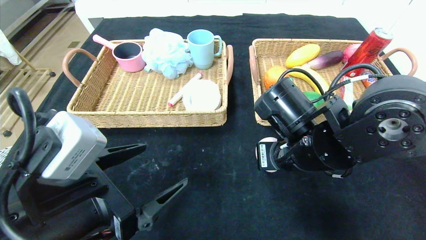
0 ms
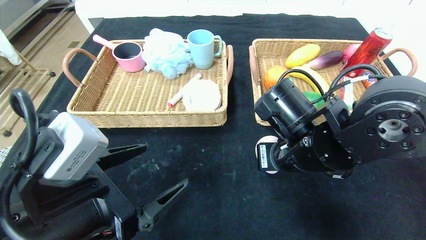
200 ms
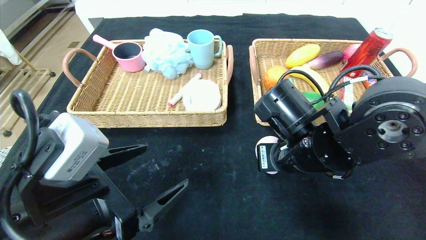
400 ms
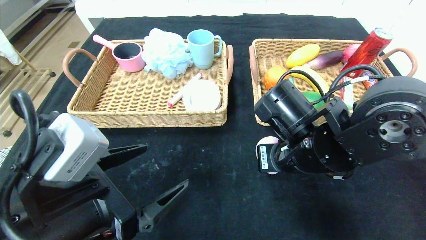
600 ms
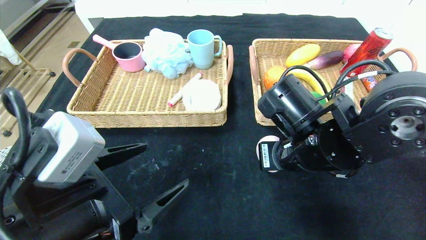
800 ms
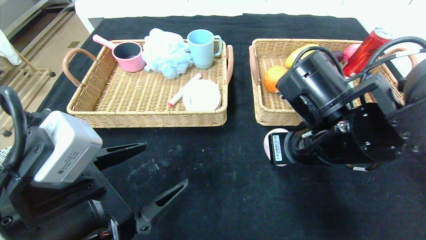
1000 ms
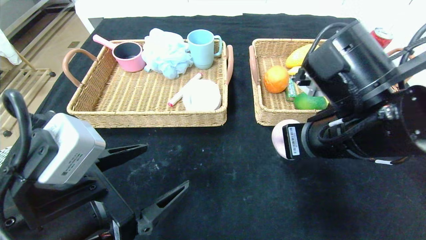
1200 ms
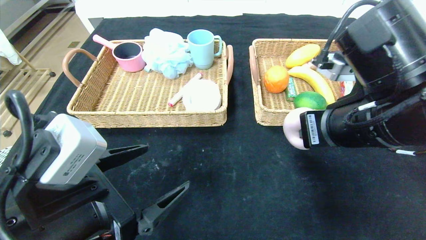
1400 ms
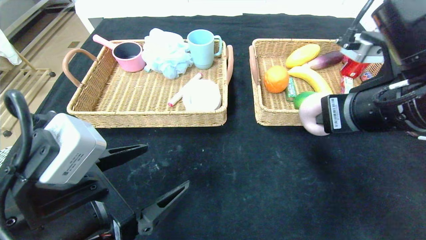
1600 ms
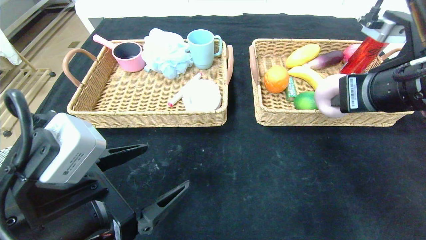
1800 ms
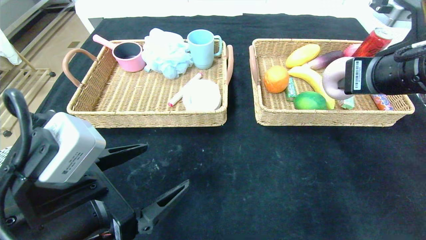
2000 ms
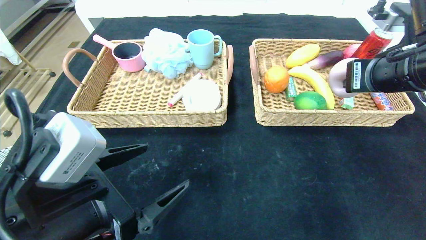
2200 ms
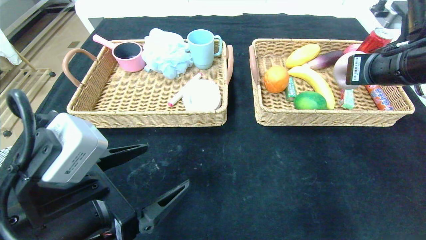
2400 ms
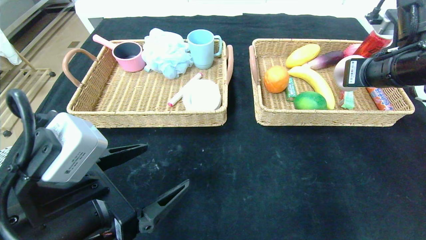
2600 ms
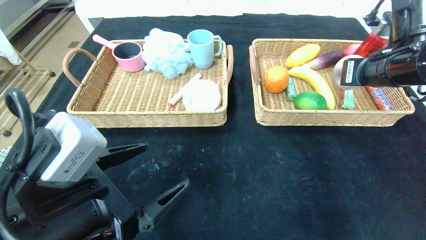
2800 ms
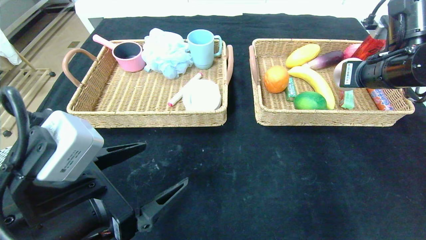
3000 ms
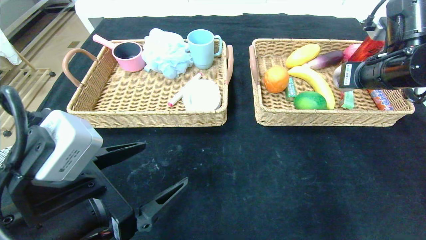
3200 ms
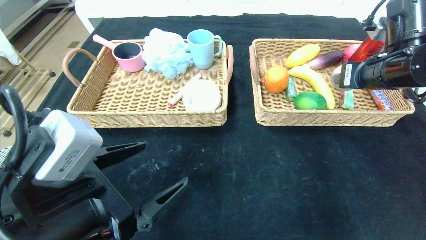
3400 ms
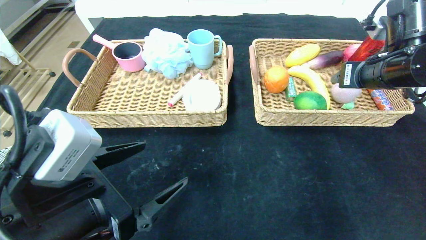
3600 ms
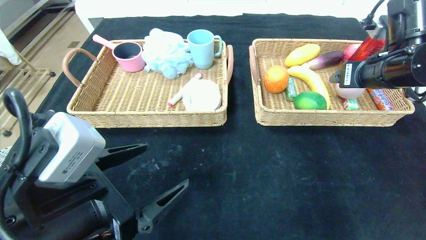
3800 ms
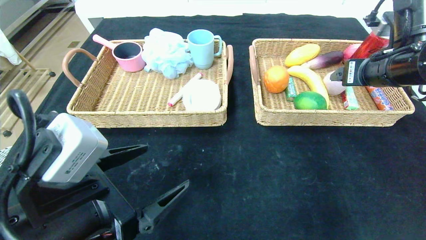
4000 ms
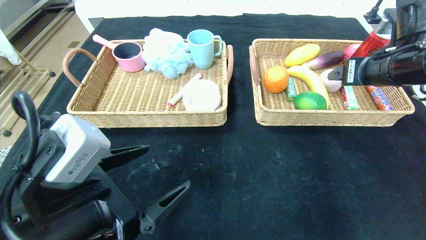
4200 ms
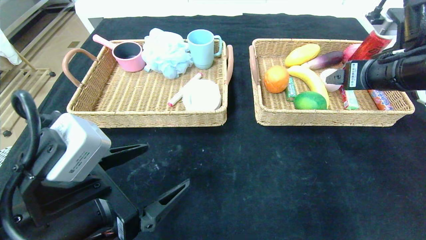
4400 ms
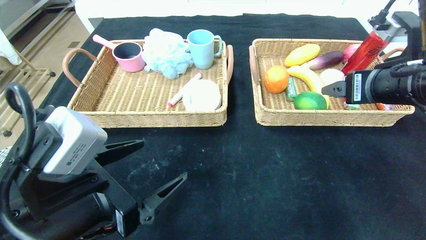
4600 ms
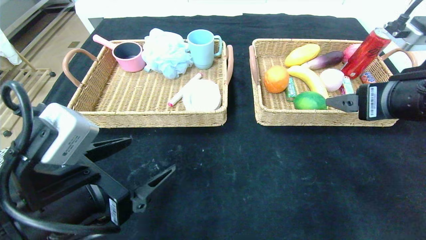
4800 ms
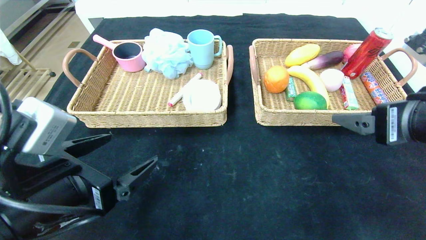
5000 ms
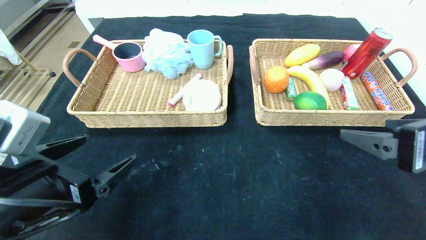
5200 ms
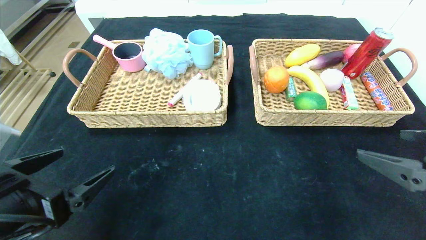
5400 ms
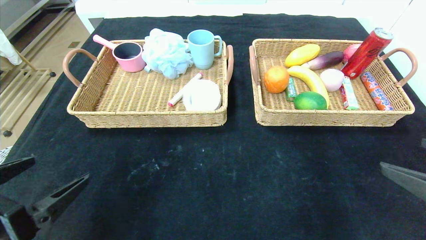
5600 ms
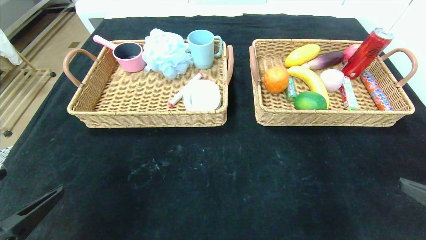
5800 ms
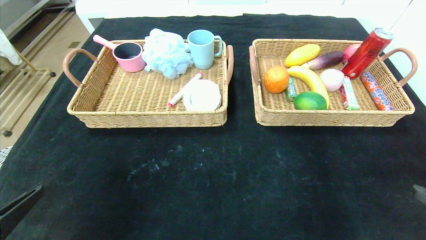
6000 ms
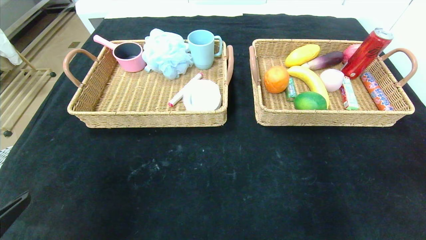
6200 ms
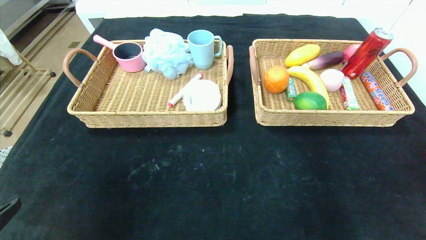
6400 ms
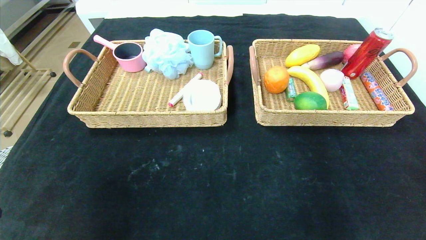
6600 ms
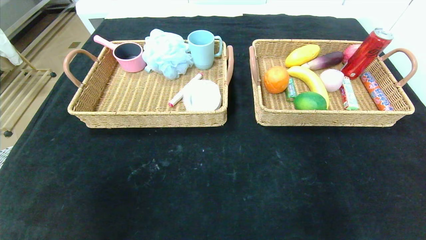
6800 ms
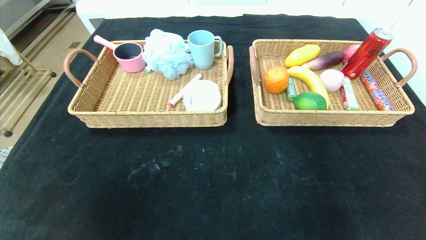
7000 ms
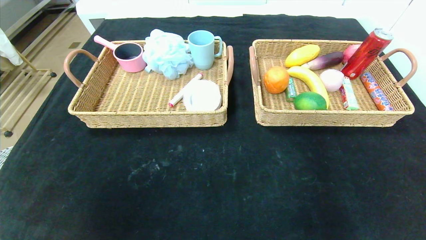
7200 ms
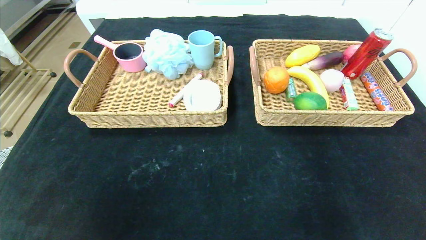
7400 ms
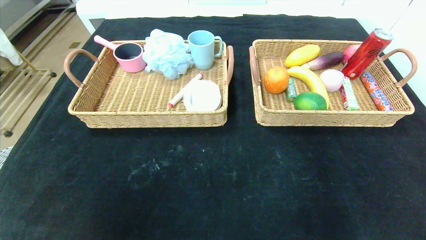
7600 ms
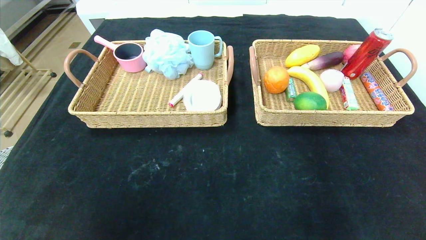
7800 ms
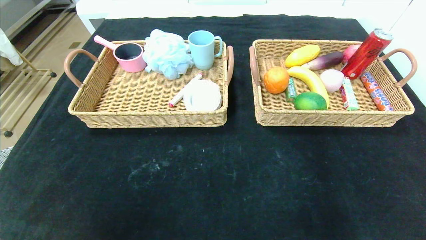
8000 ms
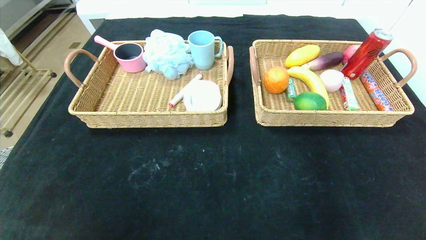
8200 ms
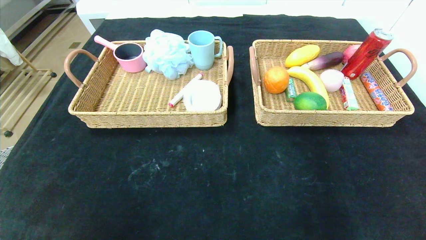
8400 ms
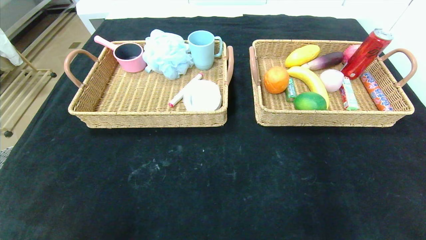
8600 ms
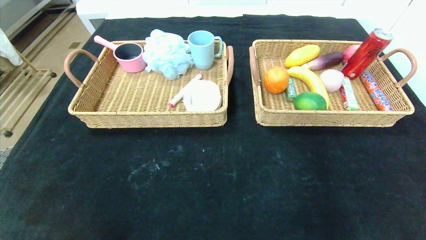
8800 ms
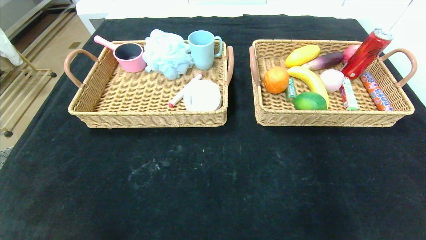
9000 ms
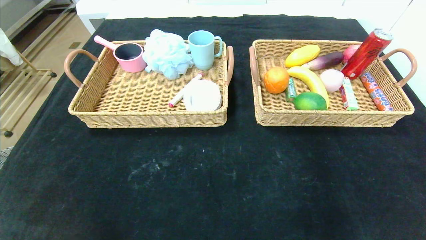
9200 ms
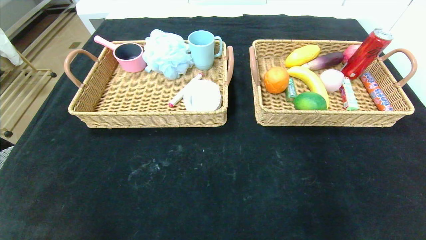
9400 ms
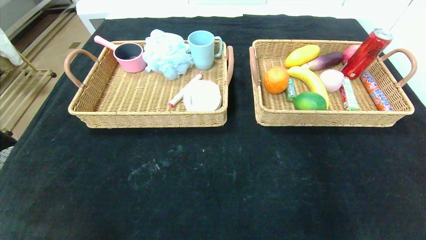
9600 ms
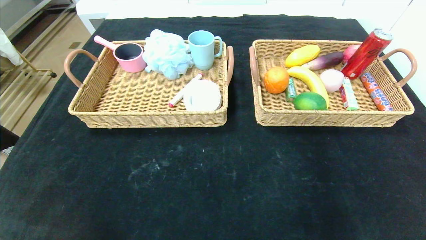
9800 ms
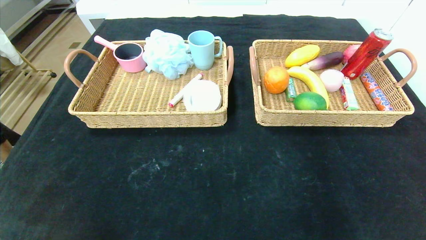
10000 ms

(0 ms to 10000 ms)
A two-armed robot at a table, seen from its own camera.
Step, 0 ms - 3800 ms: Grasp the peach and put it in the right basket.
0 ms - 1400 ms: The right gripper goes about 10 cm upward and to the right.
1400 ms - 2800 ms: The right gripper shifts roughly 15 cm forward and to the right.
2800 ms - 4200 ms: The right gripper opens.
4200 ms - 5800 ms: The left gripper heads to the left and backward, covering roughly 10 cm, while the right gripper is displaced backward by about 25 cm.
5800 ms - 7200 ms: Both grippers travel together backward, about 15 cm.
8600 ms - 10000 ms: The left gripper is displaced downward by some 5 cm.

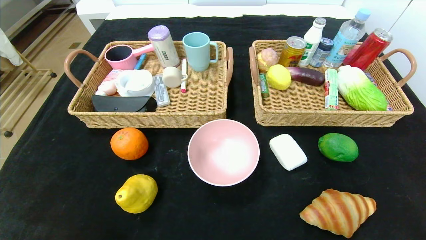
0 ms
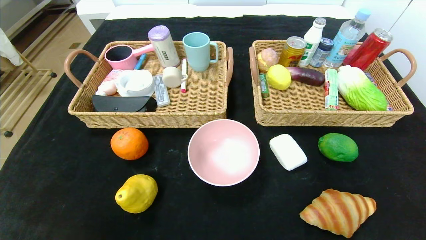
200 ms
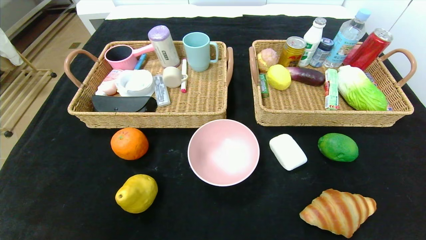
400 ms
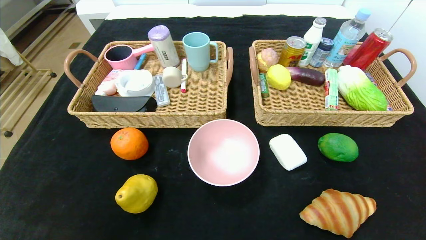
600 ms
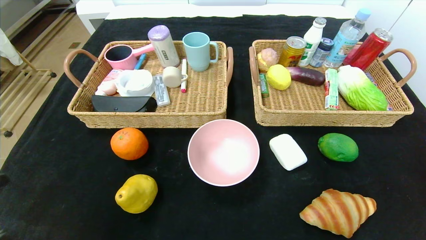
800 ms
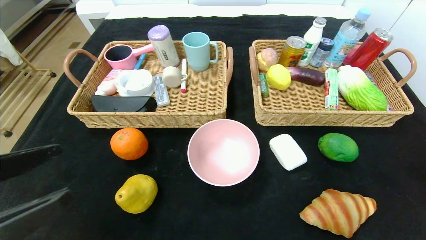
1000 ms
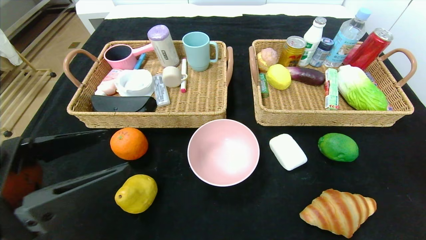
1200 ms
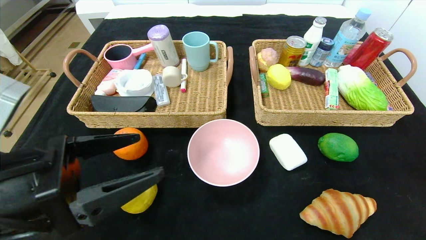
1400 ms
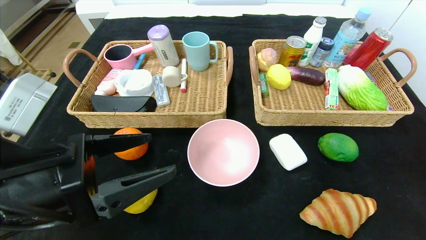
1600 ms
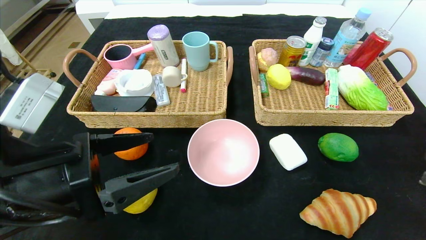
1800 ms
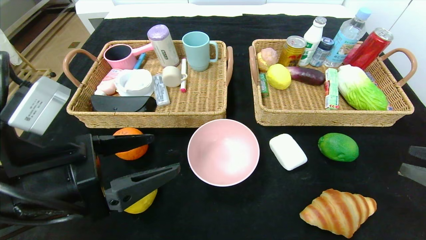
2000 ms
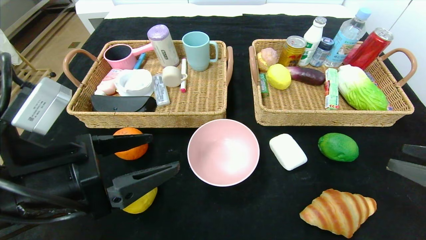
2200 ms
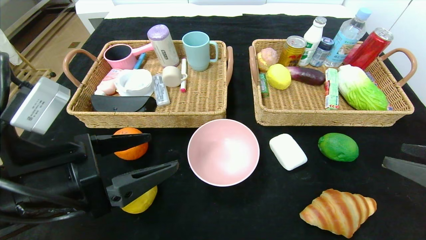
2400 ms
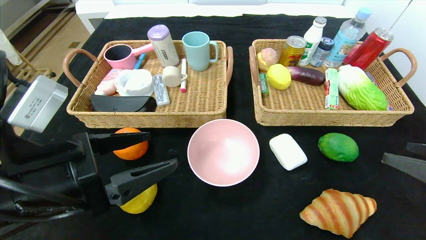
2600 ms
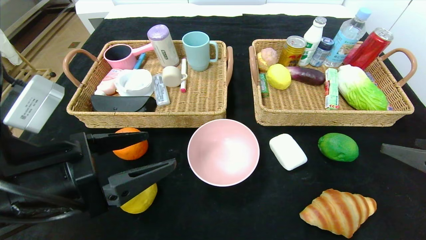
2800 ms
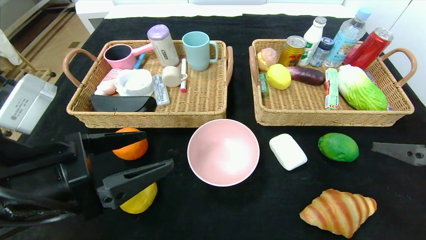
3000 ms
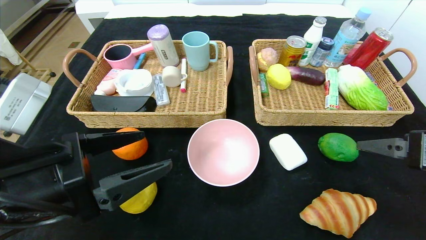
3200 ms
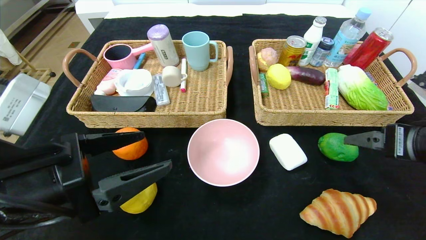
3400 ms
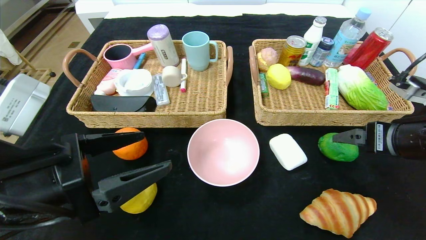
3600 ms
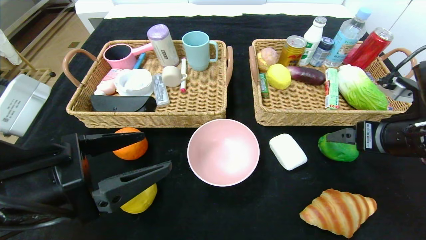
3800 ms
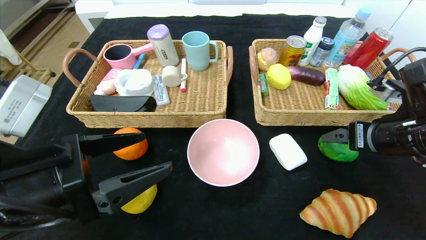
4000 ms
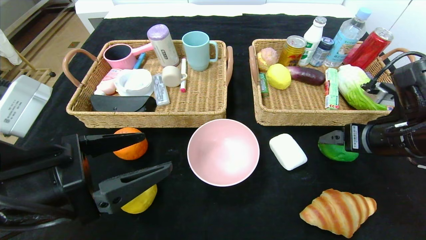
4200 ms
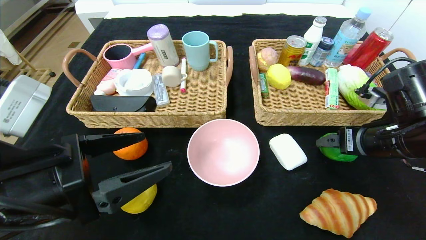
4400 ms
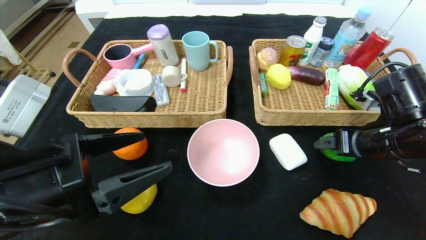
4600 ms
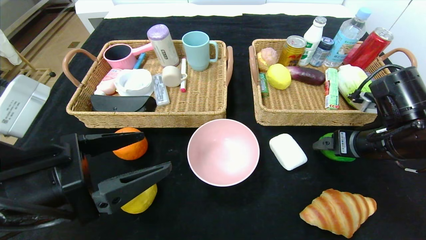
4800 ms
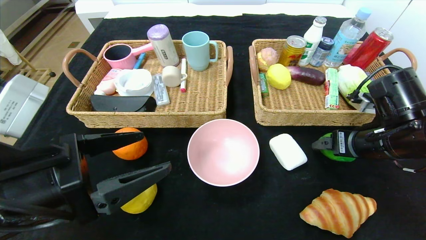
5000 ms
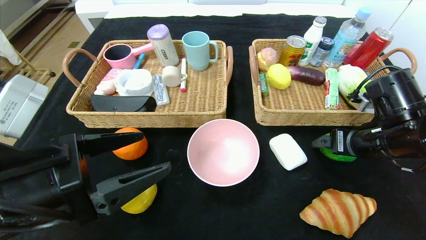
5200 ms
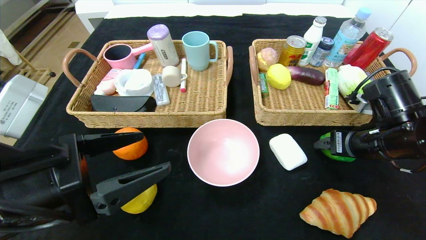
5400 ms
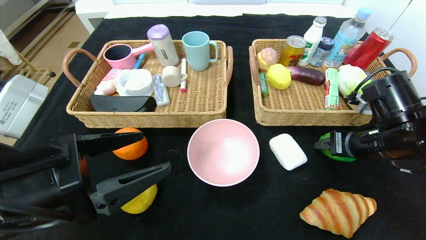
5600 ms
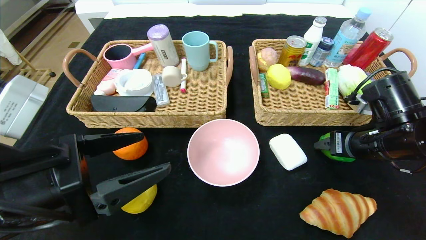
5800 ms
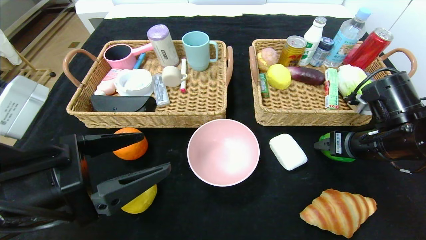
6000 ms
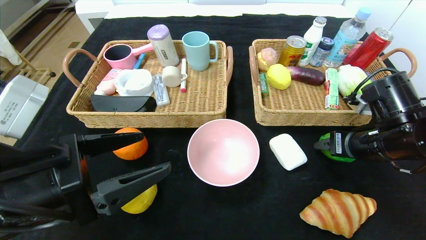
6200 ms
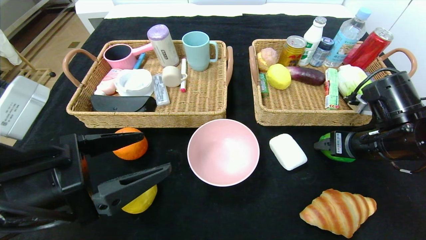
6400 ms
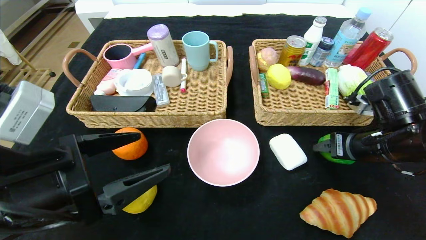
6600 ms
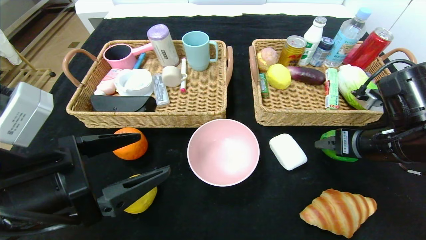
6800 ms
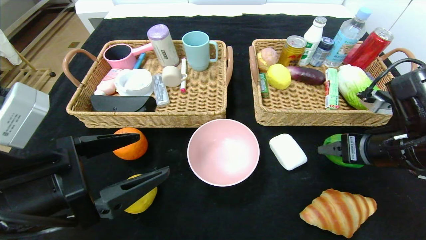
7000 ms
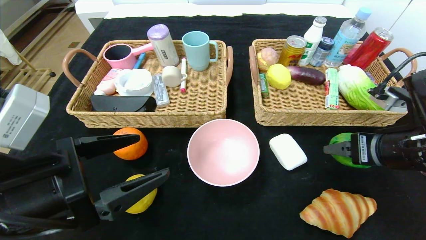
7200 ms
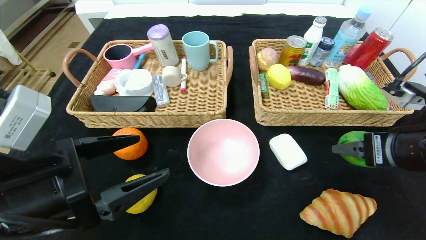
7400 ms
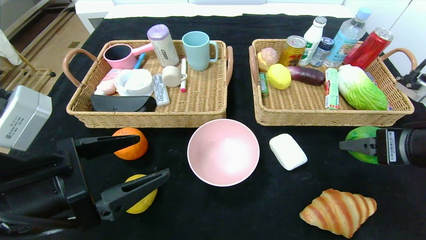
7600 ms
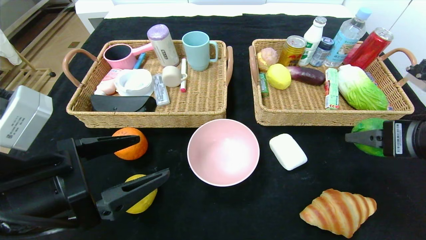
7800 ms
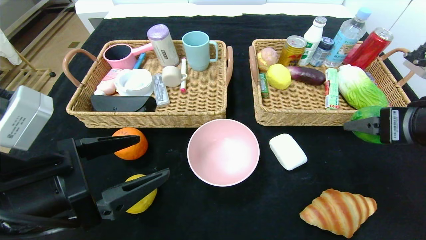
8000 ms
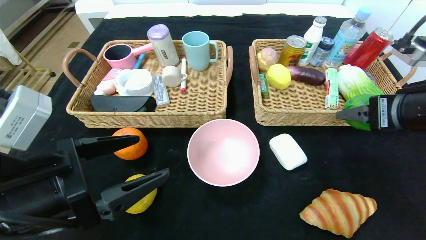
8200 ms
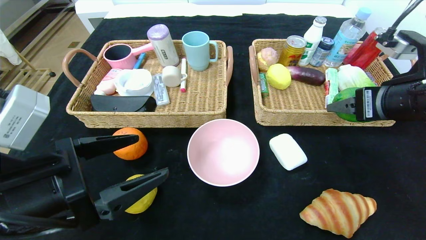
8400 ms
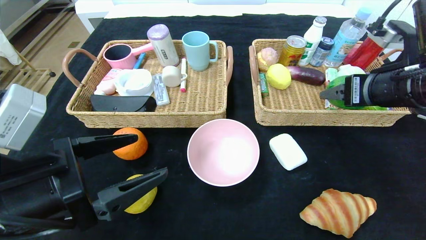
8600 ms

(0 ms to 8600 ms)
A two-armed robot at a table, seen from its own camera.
0 ms - 1400 ms: The left gripper shifts about 25 cm forward, upward and to the right; the right gripper is displaced upward and forward by some 15 cm.
1400 ms - 2800 ms: The right gripper heads forward, covering approximately 10 cm.
2800 ms - 4400 ms: The right gripper shifts roughly 15 cm forward and to the left.
4400 ms - 5800 ms: The right gripper closes up.
5800 ms - 7200 ms: The right gripper is displaced backward by approximately 5 cm.
7200 ms - 8600 ms: The right gripper heads upward, covering roughly 5 cm.
